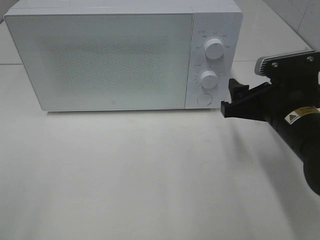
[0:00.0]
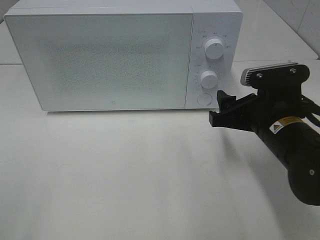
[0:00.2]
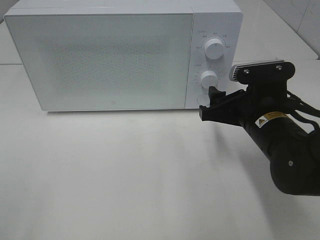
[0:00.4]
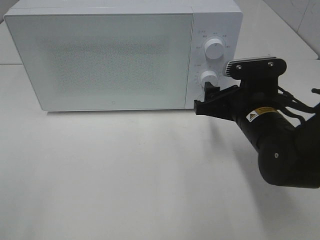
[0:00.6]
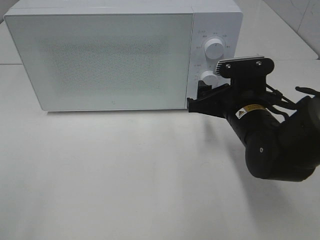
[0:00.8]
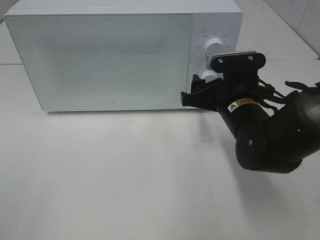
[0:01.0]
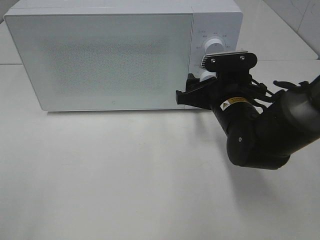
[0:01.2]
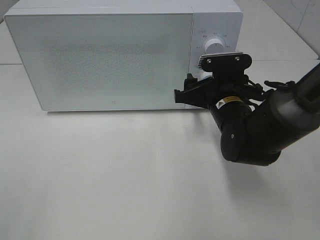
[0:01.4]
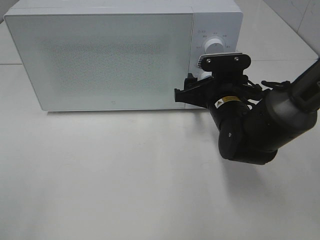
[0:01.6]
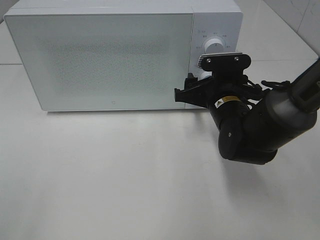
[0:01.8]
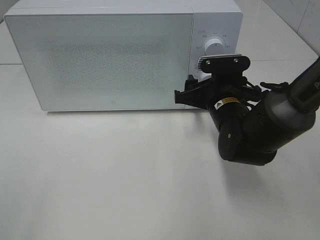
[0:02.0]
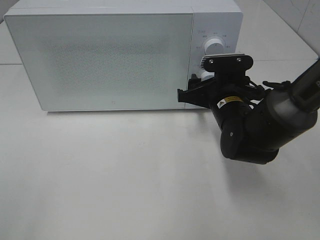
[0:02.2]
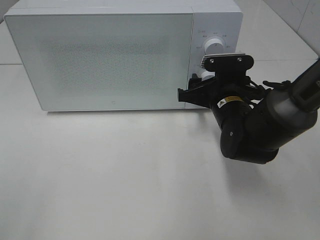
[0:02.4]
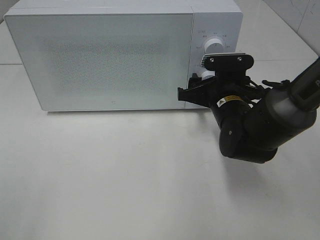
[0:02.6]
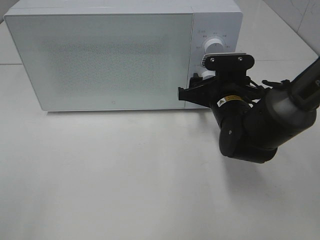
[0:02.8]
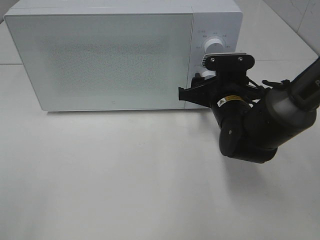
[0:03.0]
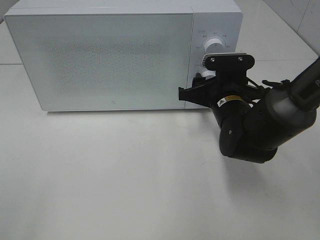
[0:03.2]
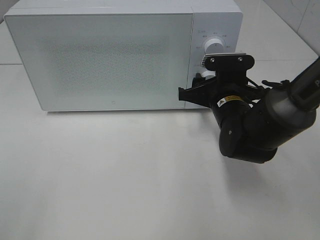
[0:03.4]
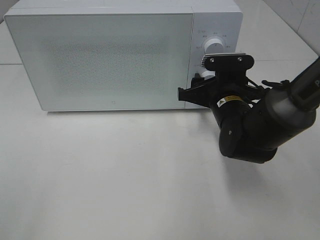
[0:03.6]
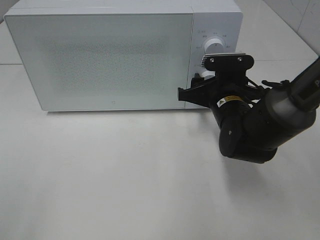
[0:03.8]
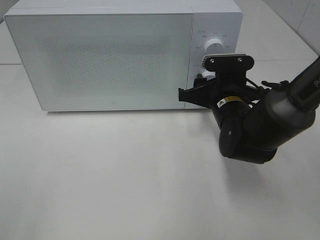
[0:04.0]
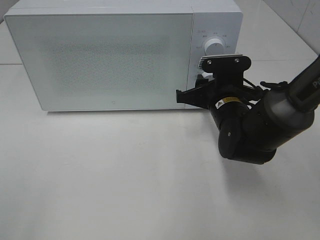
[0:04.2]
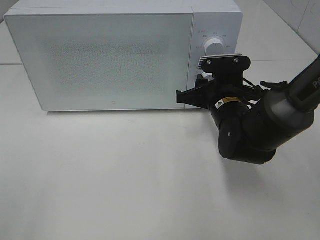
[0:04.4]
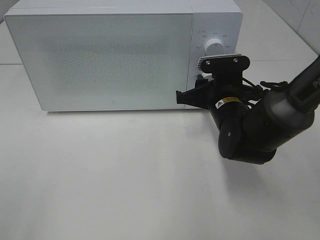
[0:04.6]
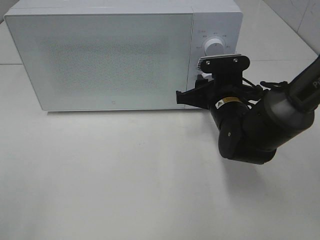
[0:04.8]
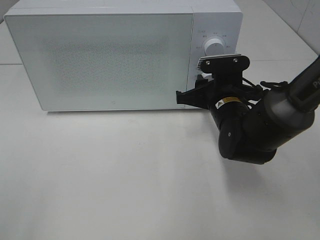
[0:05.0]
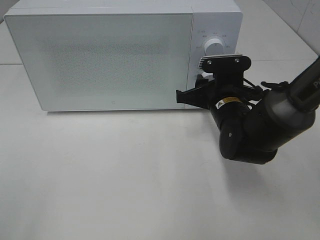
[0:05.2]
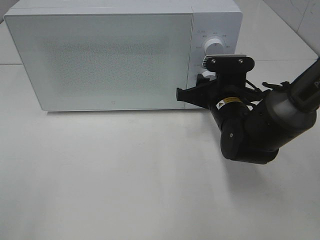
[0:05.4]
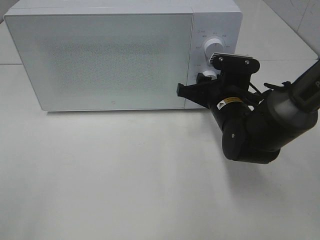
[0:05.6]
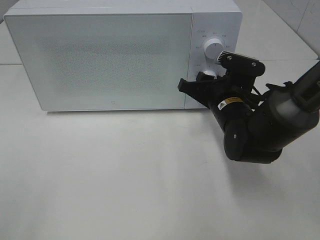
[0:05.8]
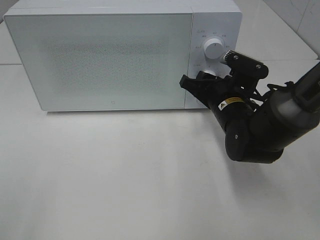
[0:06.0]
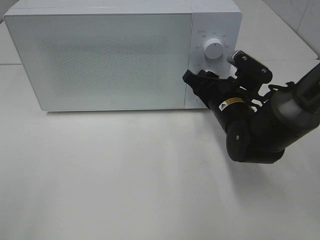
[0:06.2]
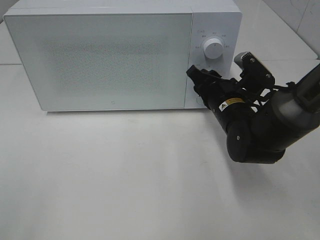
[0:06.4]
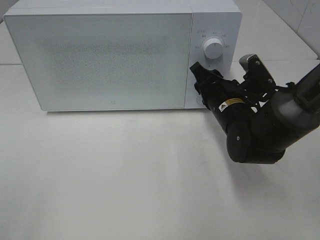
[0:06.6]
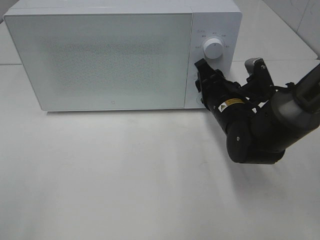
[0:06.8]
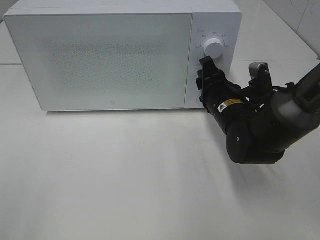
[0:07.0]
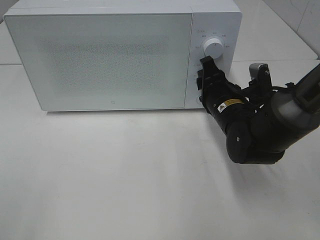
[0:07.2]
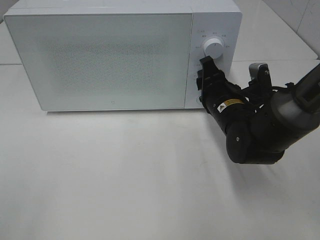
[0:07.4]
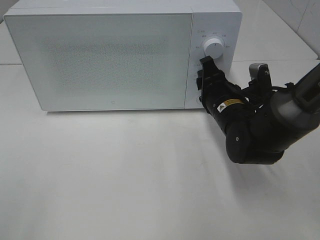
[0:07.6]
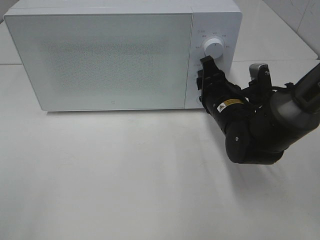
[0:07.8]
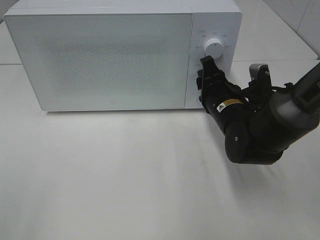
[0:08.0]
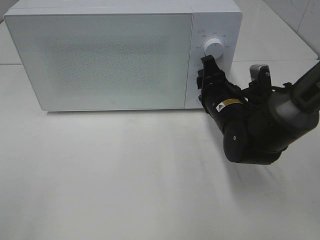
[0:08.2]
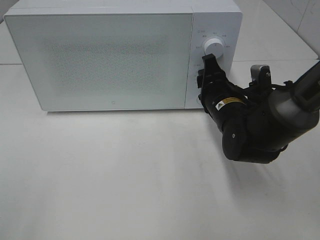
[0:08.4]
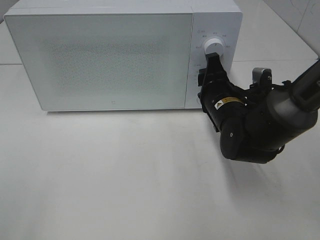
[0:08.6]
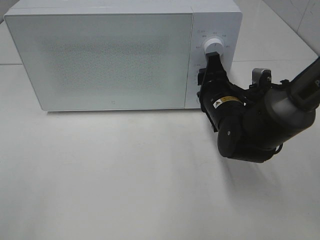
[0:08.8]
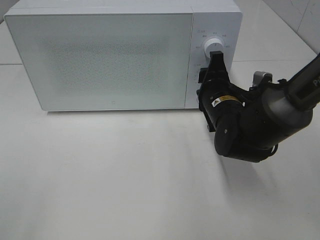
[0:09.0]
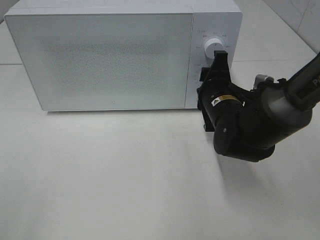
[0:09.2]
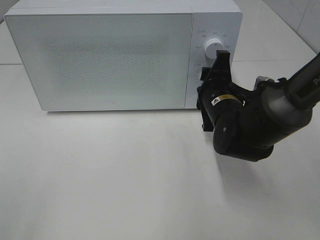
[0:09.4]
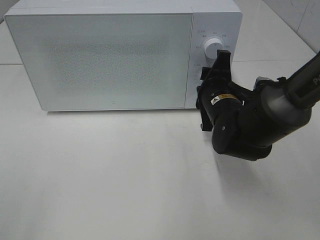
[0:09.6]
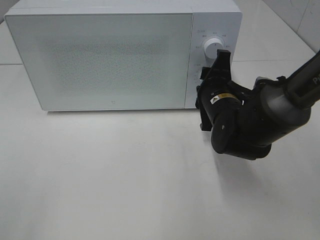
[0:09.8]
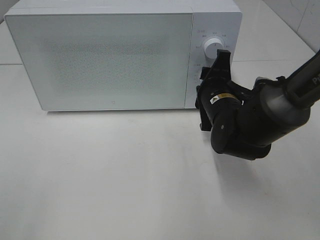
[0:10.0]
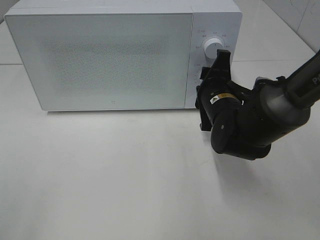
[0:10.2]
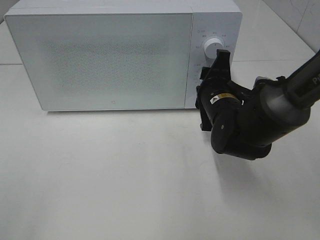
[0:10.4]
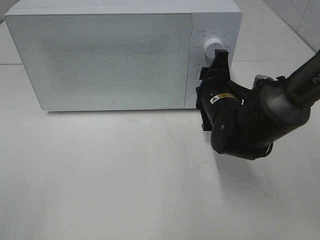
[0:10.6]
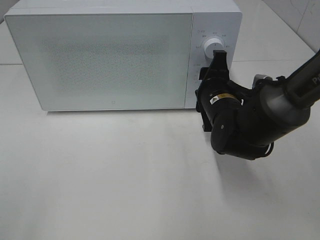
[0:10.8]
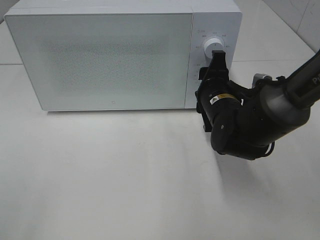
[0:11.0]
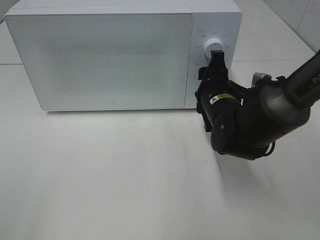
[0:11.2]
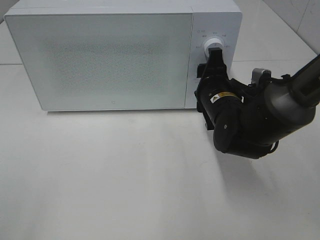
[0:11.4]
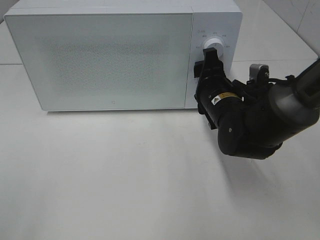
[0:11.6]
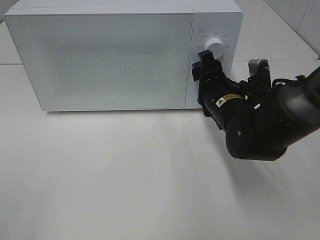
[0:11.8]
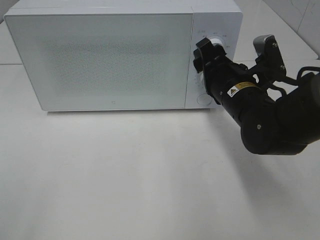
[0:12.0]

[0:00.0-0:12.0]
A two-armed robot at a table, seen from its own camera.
Task of the whole recording: Heat the burger.
0:00.0 to 0:01.6: The right gripper heads forward and to the left, covering some 10 cm.
0:01.6 to 0:04.4: Both grippers stay about where they are.
0:07.6 to 0:09.0: The grippers make only small movements.
0:09.0 to 0:10.4: The grippers make only small movements.

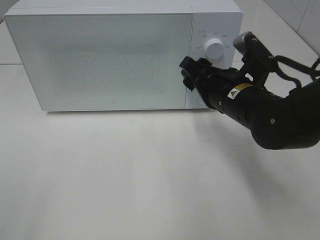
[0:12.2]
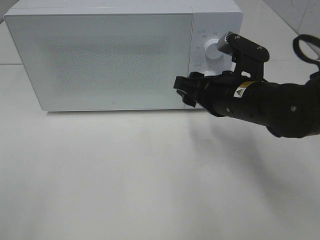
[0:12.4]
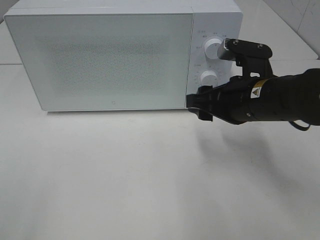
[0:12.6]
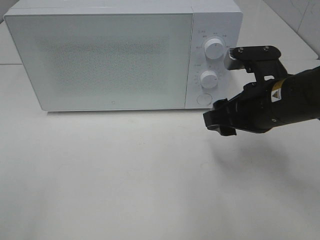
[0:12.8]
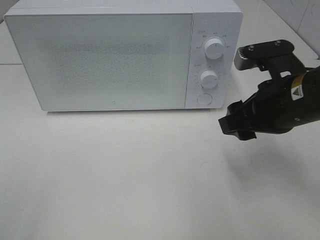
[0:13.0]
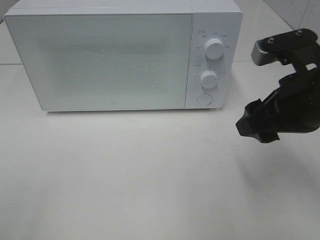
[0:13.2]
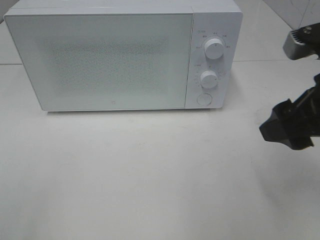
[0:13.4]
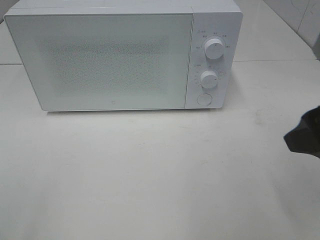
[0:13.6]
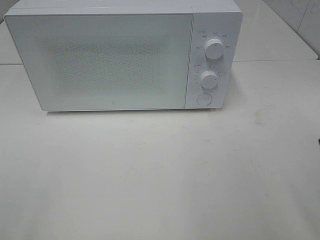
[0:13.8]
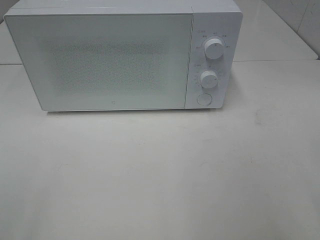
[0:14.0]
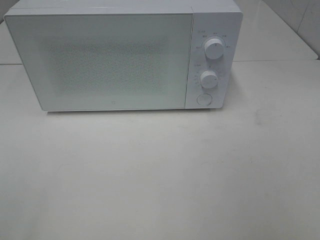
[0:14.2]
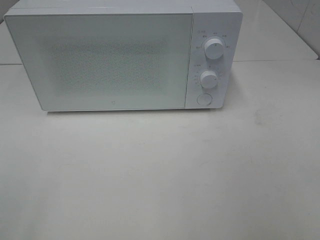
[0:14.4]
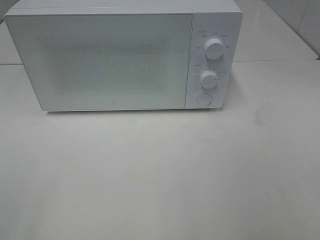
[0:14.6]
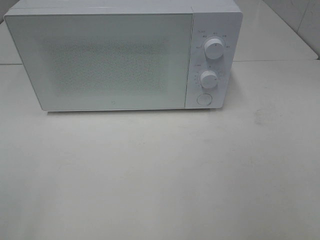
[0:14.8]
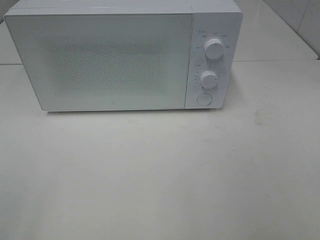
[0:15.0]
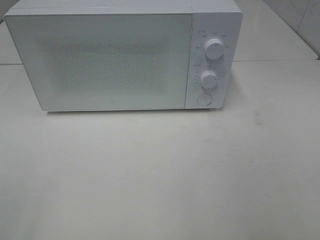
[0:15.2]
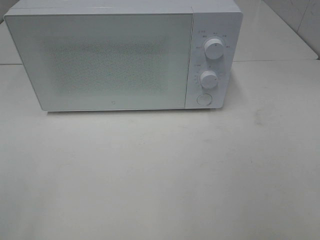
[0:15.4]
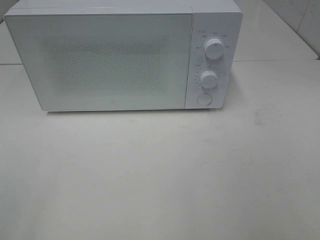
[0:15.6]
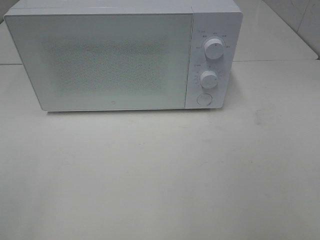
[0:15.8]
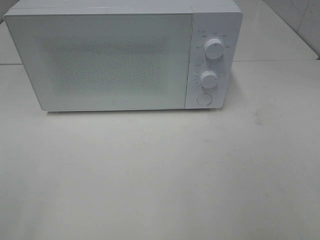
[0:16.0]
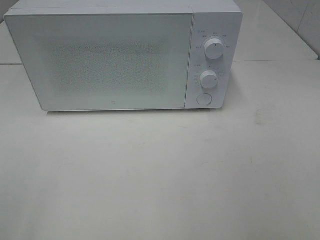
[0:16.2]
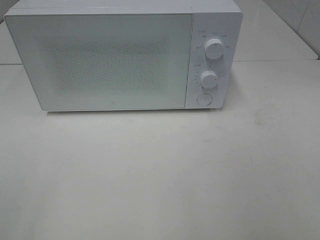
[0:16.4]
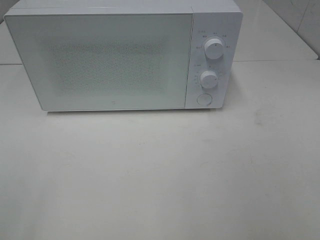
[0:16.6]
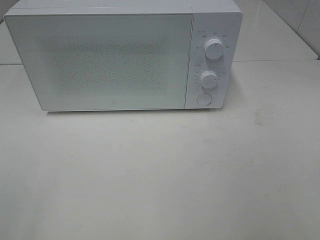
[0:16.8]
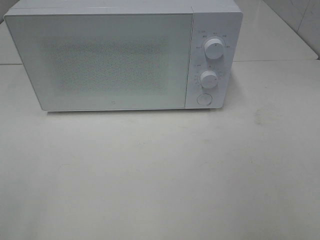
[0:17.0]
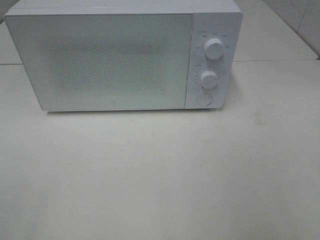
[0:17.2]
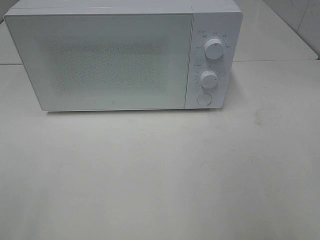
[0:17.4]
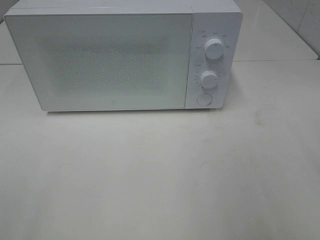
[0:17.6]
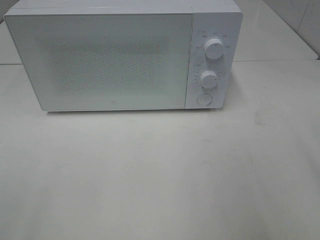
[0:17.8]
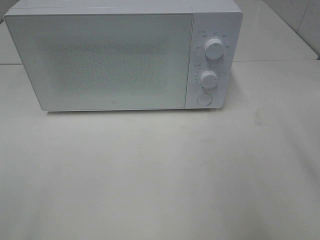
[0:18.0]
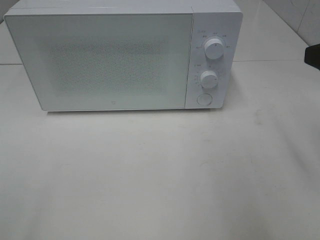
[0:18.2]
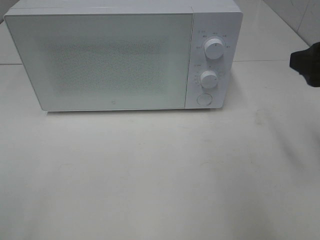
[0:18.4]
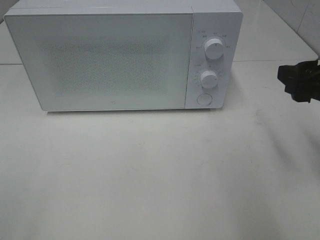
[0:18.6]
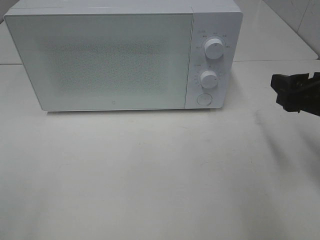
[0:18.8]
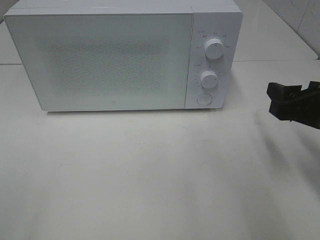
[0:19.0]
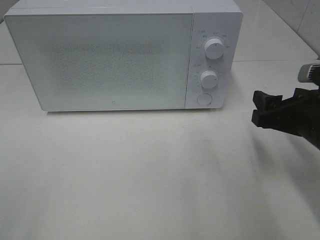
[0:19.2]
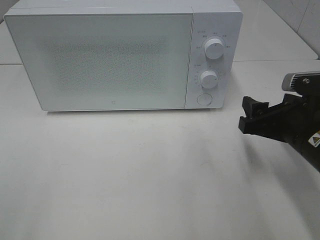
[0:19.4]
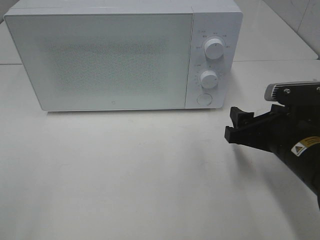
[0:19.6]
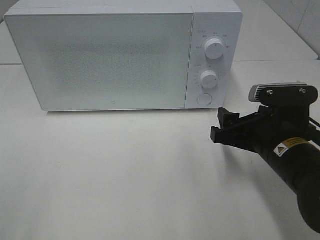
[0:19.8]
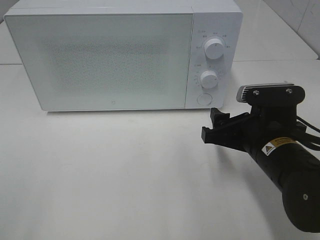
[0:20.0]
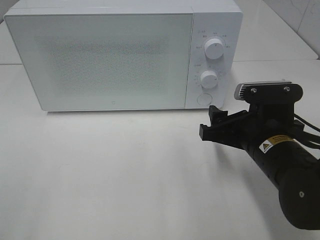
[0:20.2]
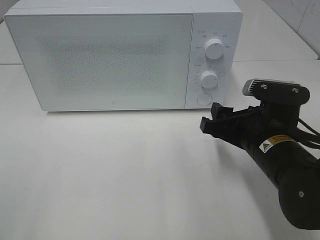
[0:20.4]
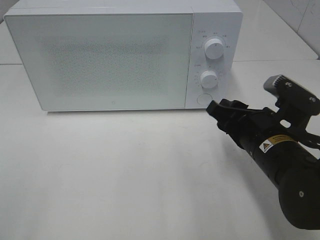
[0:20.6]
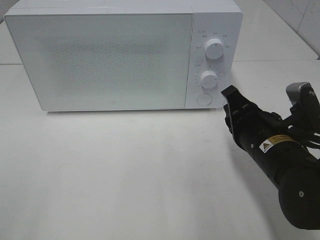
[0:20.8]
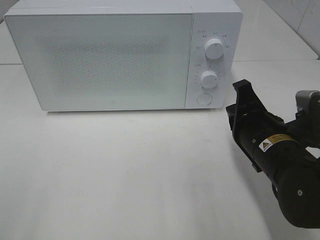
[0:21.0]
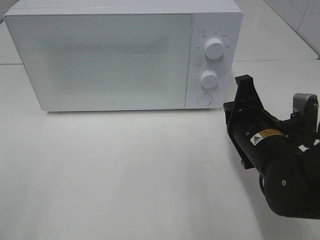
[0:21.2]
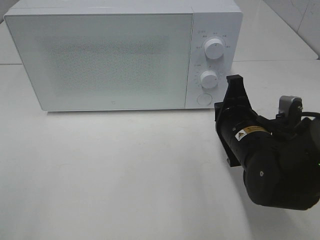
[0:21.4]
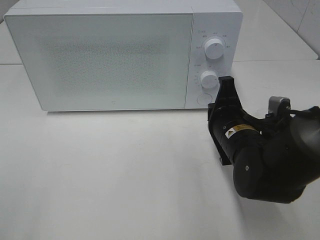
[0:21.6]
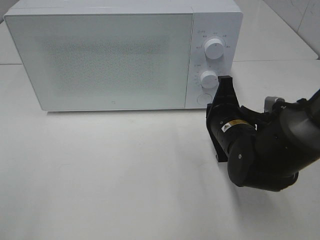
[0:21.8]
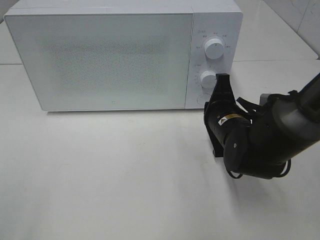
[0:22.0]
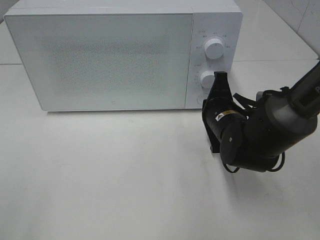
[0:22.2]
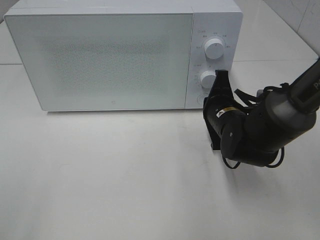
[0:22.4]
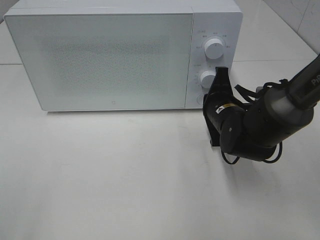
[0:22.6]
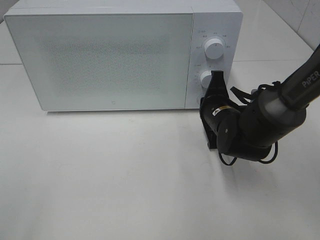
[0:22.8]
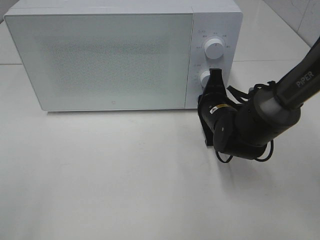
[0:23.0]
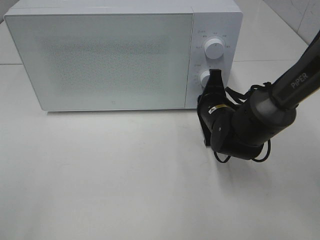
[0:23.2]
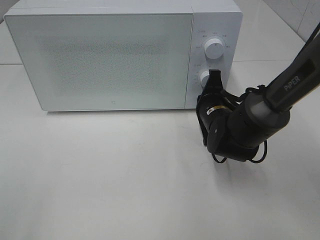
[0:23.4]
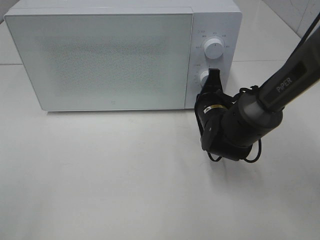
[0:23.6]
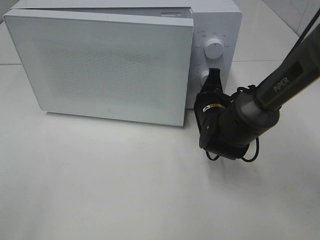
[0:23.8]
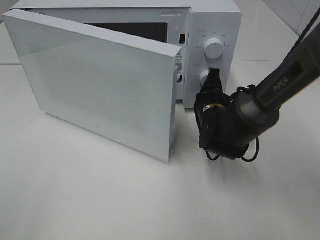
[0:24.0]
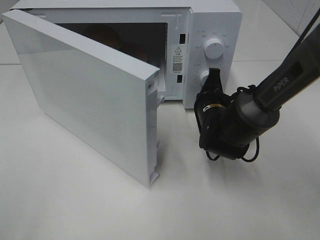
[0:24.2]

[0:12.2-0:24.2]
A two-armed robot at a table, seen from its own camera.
Task of the whole recording: Heat the burger.
0:12.2 to 0:13.8: The right gripper is displaced backward, upward and to the right by about 25 cm.
0:15.2 to 0:16.6: Neither gripper changes place.
0:18.2 to 0:19.8: The right gripper heads downward and to the left, covering approximately 20 cm.
0:19.8 to 0:21.2: The right gripper closes its fingers.
0:21.2 to 0:22.6: The right gripper goes approximately 10 cm forward.
